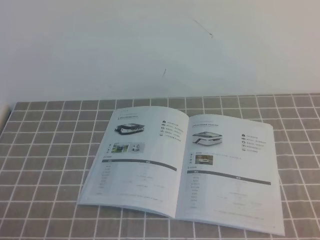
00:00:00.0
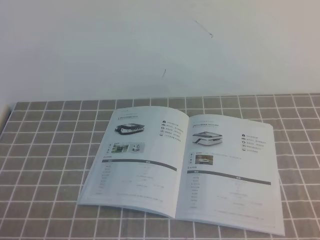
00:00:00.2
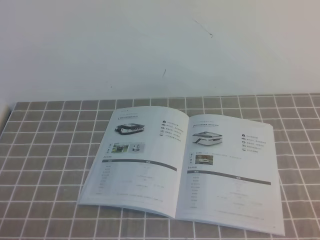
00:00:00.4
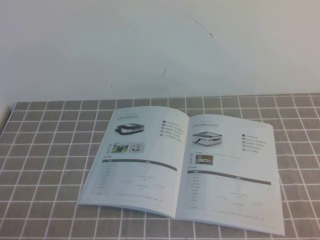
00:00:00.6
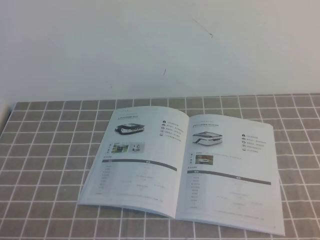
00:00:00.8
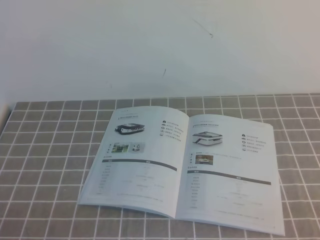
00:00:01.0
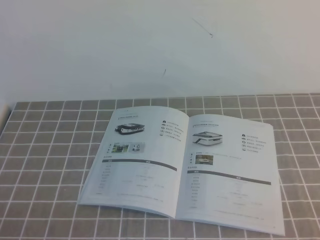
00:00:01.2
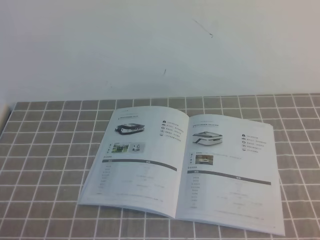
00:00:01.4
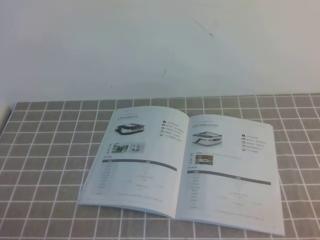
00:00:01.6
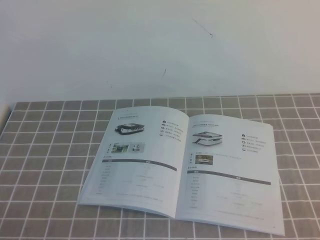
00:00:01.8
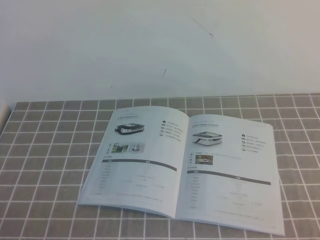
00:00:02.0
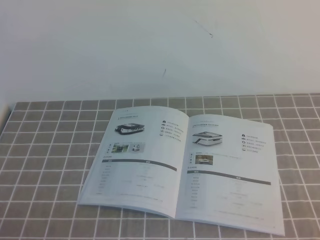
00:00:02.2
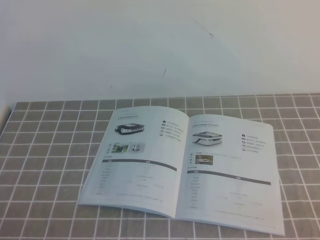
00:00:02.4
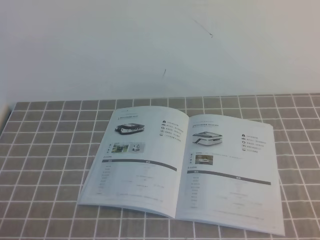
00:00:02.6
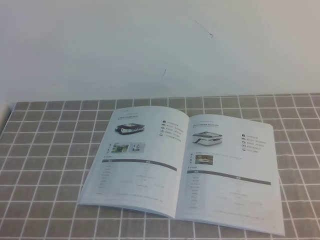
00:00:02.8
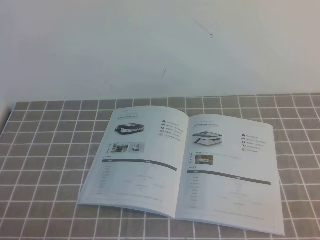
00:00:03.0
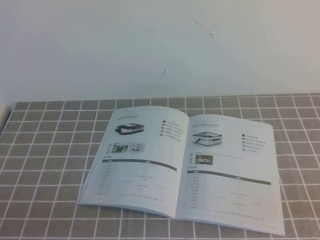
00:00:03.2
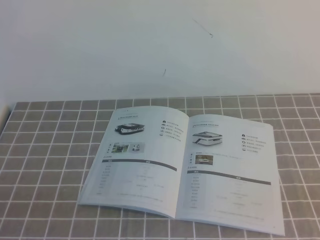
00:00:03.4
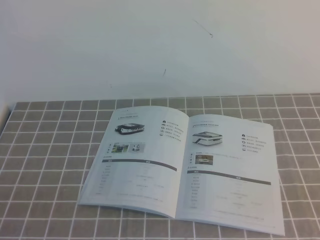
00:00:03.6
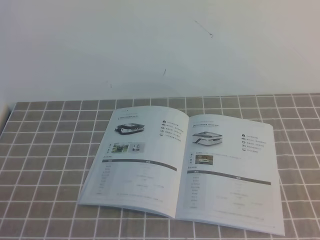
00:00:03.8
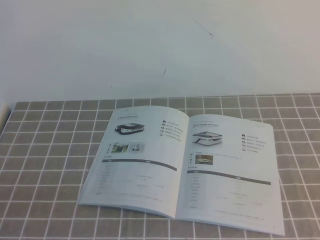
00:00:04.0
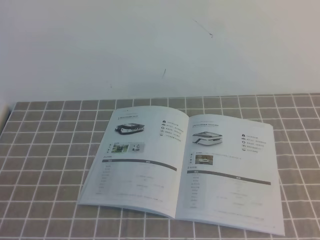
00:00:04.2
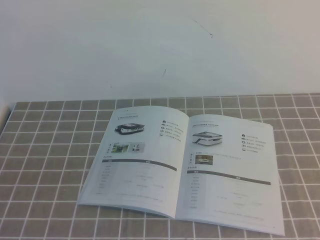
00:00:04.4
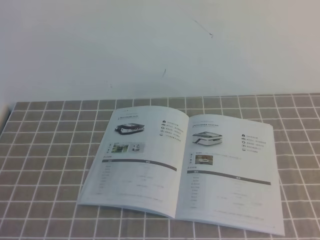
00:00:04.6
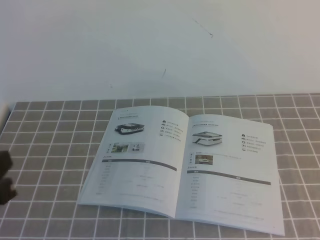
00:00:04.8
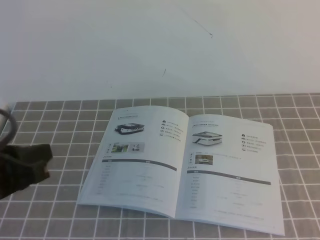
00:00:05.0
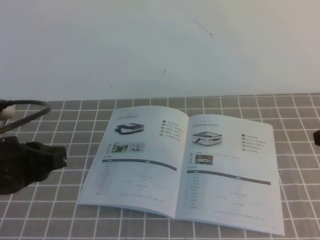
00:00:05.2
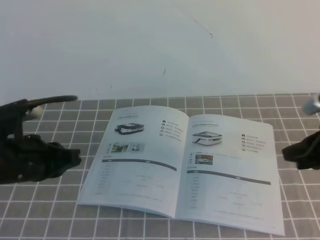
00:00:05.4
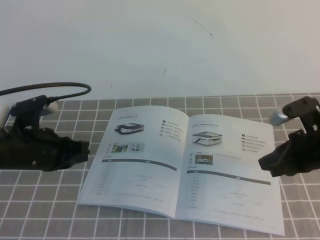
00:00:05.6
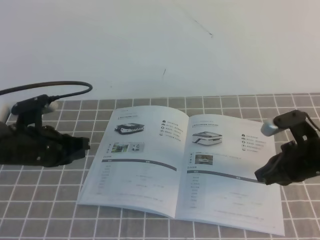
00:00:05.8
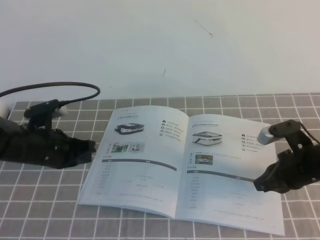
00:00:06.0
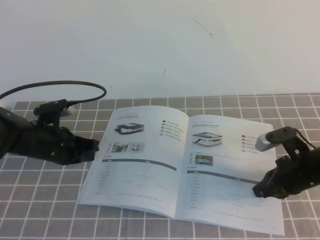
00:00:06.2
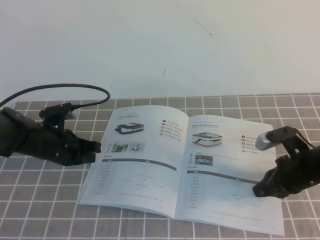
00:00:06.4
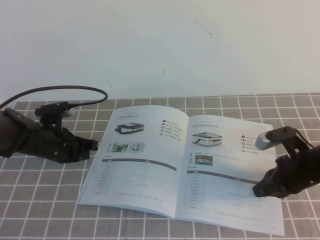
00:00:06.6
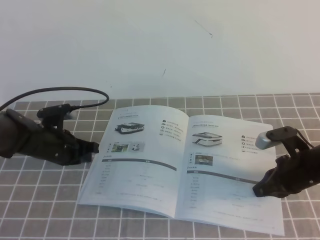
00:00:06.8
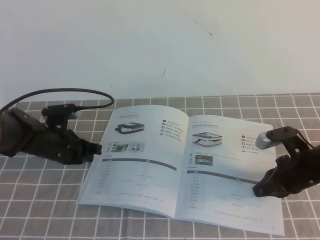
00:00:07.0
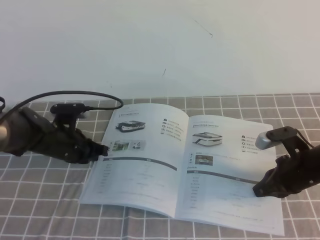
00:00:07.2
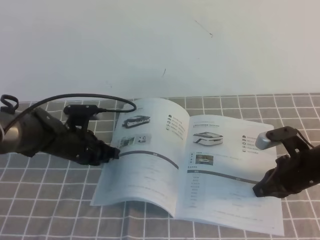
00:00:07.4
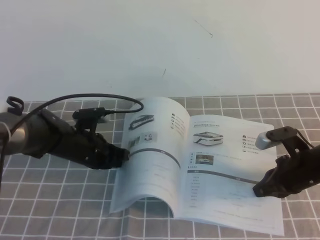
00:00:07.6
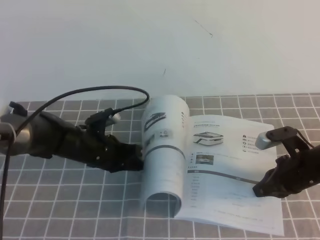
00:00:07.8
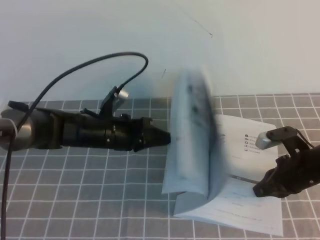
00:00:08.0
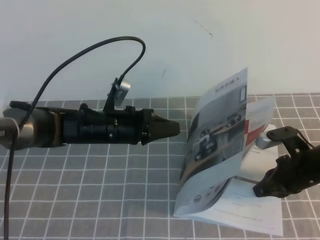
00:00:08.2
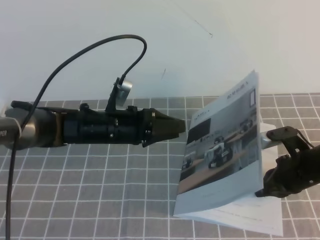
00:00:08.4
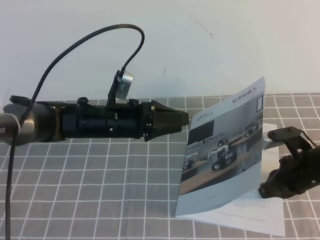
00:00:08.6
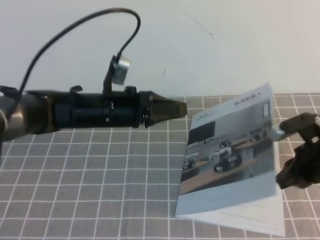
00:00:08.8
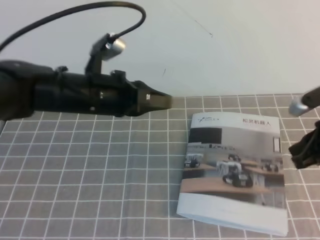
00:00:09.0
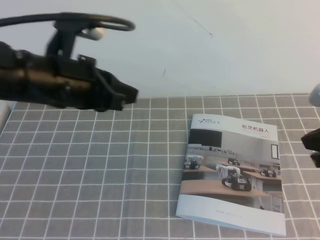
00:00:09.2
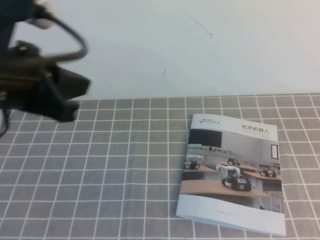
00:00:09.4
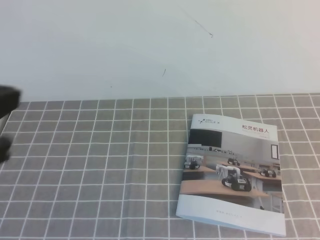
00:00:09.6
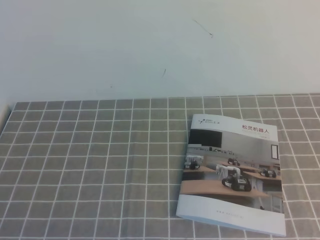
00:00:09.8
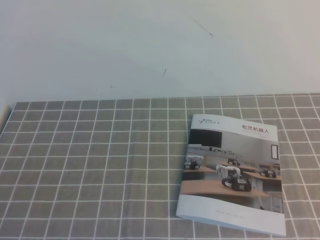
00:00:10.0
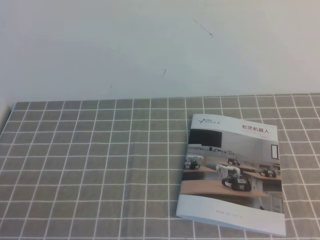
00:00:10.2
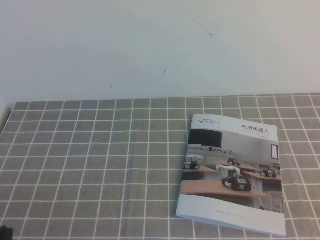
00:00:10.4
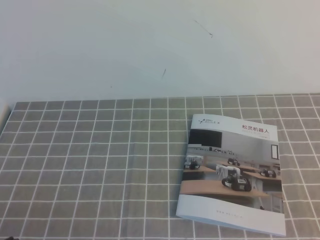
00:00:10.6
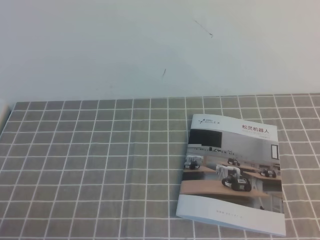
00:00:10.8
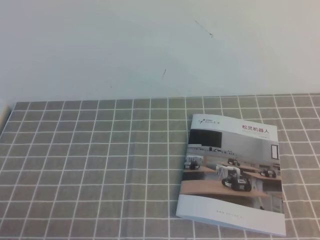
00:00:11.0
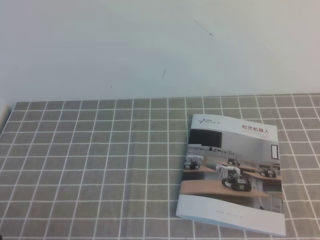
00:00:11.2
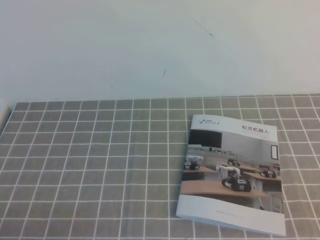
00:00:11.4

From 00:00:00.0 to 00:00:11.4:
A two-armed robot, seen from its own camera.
Task of the whole recording: on the grey tablecloth, hold the book with one hand and close it with the other.
From 00:00:00.0 to 00:00:02.8: Both grippers stay about where they are.
From 00:00:04.2 to 00:00:05.6: The left gripper heads forward, covering about 25 cm. The right gripper goes about 30 cm forward and downward.
From 00:00:05.6 to 00:00:07.2: The left gripper goes roughly 15 cm forward and downward. Meanwhile the right gripper shifts roughly 10 cm downward.
From 00:00:07.2 to 00:00:08.6: The left gripper heads to the right and upward, covering roughly 10 cm, and opens up.
From 00:00:08.6 to 00:00:10.0: The left gripper heads backward, to the left and upward, covering about 35 cm, and closes up; the right gripper is displaced backward and upward by some 25 cm.
